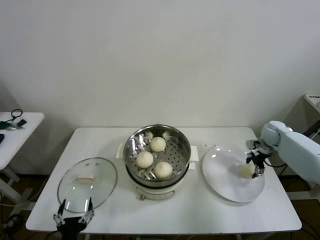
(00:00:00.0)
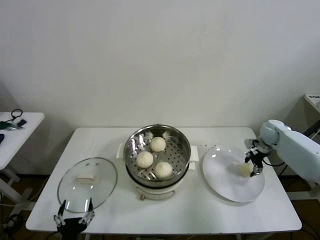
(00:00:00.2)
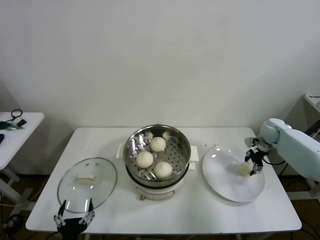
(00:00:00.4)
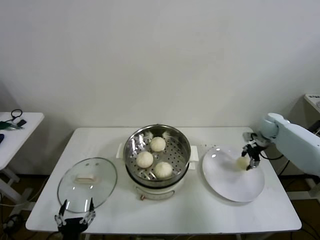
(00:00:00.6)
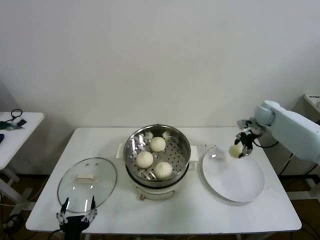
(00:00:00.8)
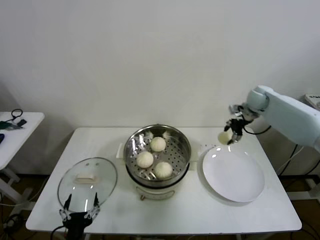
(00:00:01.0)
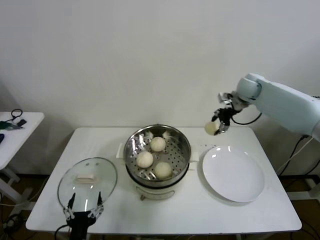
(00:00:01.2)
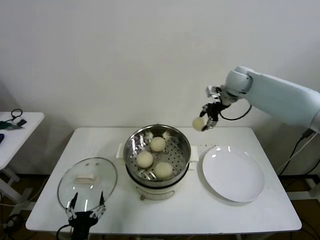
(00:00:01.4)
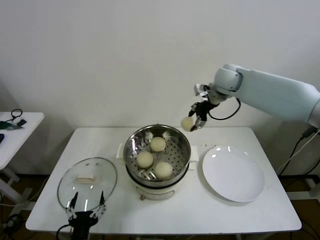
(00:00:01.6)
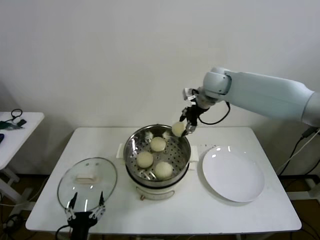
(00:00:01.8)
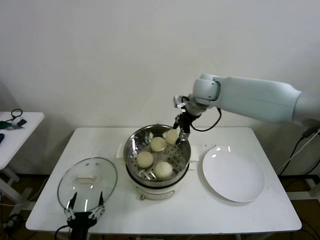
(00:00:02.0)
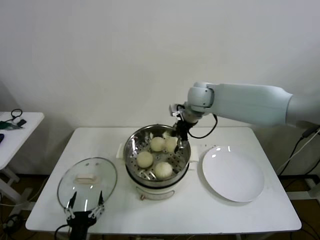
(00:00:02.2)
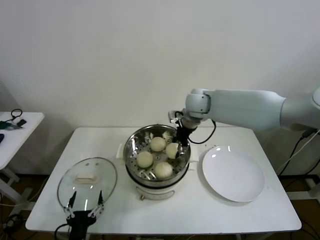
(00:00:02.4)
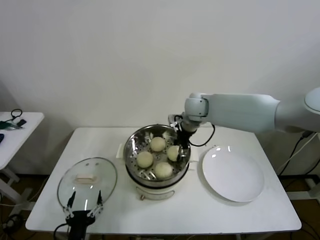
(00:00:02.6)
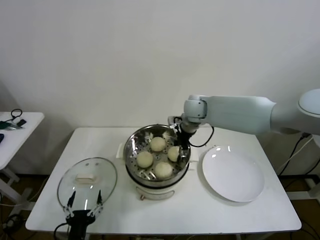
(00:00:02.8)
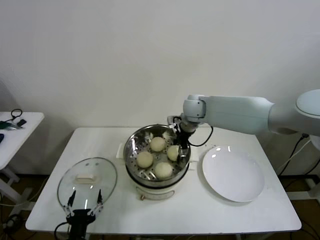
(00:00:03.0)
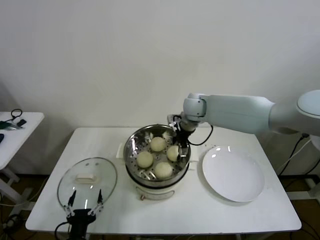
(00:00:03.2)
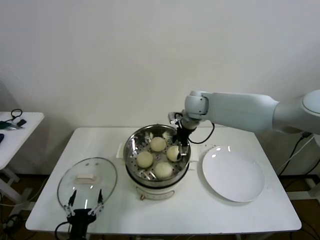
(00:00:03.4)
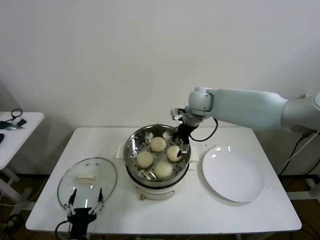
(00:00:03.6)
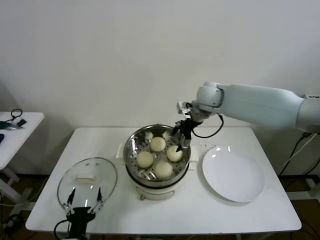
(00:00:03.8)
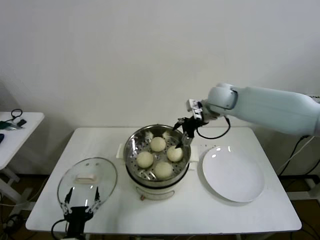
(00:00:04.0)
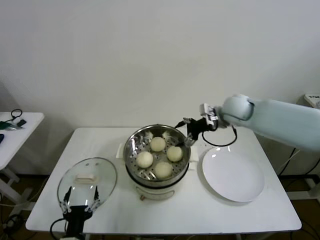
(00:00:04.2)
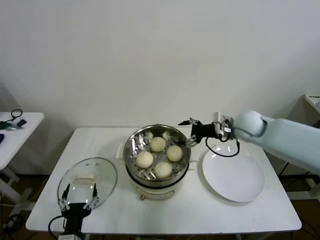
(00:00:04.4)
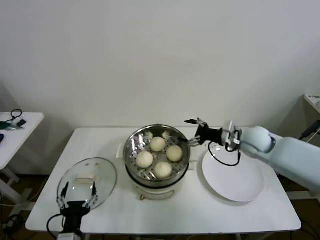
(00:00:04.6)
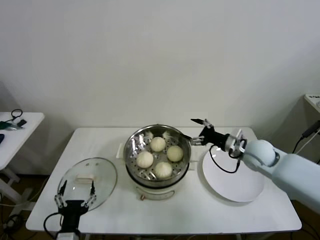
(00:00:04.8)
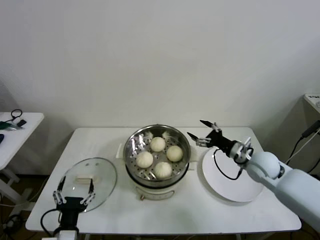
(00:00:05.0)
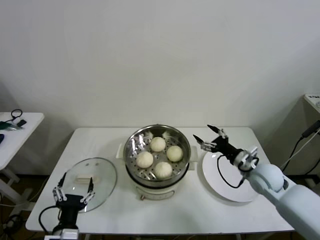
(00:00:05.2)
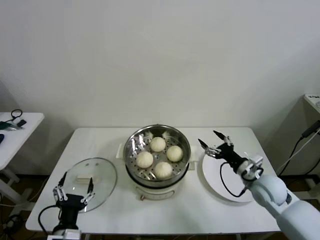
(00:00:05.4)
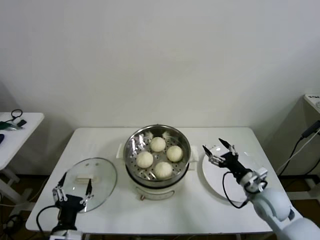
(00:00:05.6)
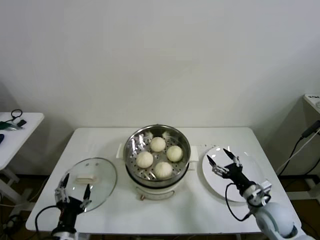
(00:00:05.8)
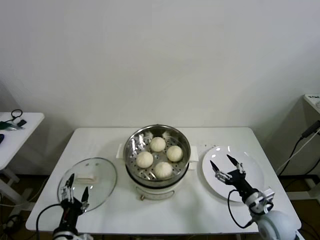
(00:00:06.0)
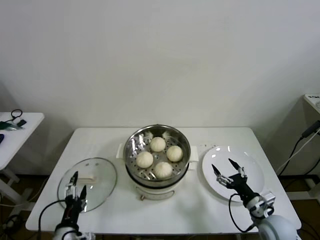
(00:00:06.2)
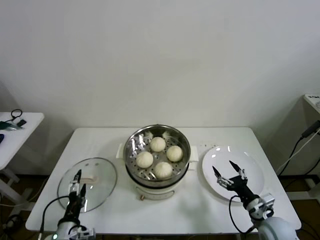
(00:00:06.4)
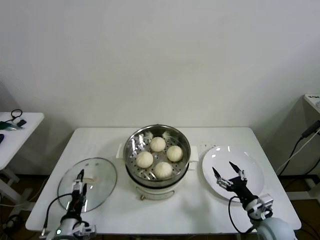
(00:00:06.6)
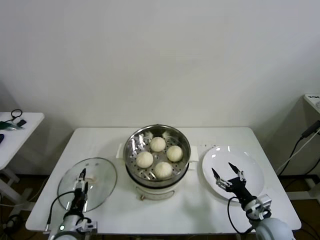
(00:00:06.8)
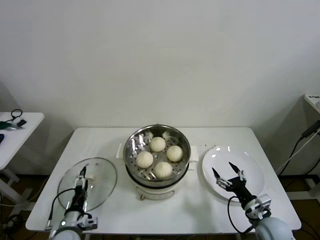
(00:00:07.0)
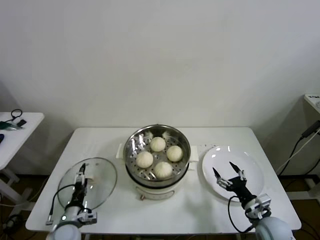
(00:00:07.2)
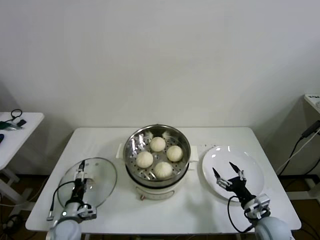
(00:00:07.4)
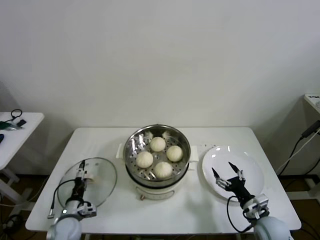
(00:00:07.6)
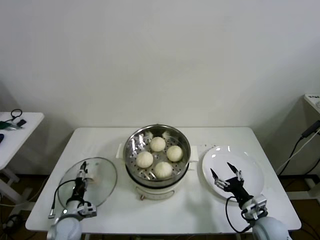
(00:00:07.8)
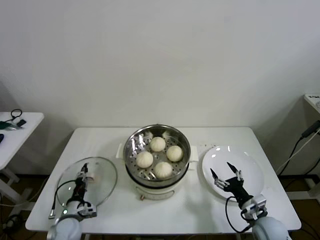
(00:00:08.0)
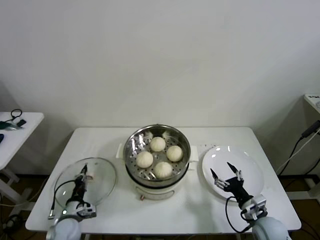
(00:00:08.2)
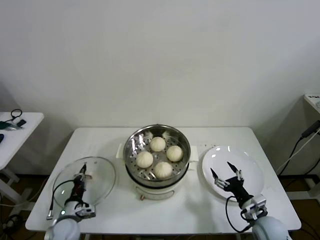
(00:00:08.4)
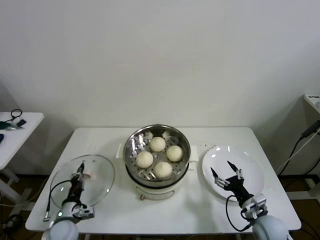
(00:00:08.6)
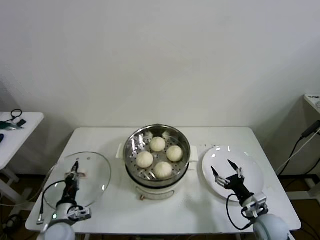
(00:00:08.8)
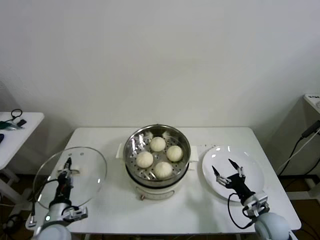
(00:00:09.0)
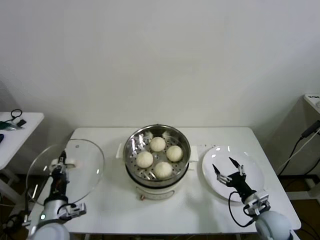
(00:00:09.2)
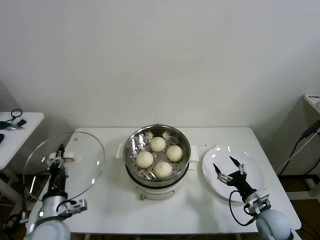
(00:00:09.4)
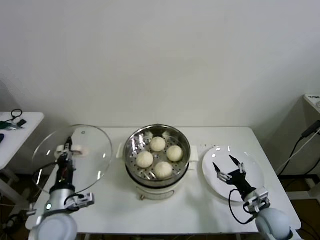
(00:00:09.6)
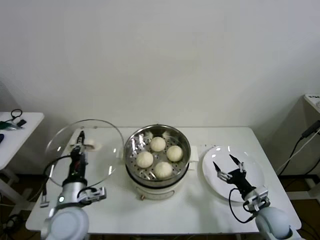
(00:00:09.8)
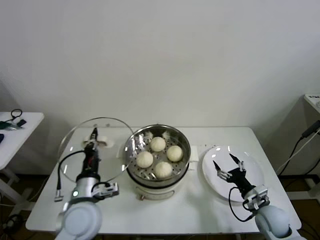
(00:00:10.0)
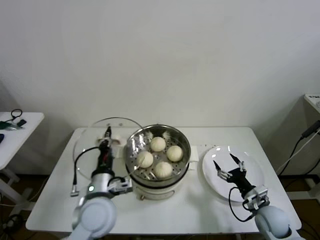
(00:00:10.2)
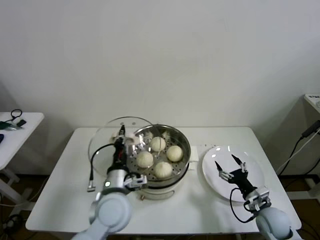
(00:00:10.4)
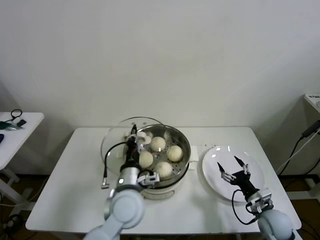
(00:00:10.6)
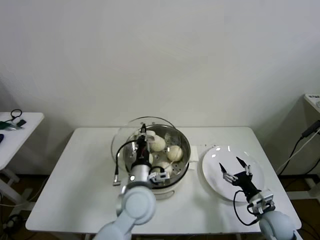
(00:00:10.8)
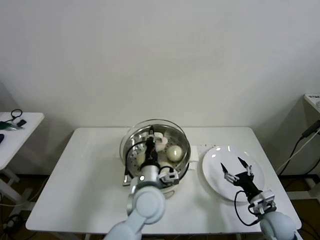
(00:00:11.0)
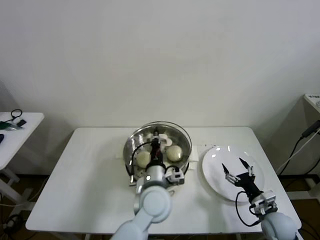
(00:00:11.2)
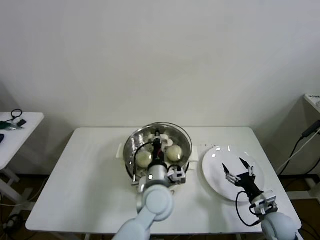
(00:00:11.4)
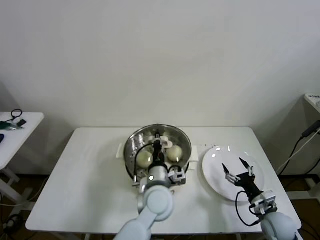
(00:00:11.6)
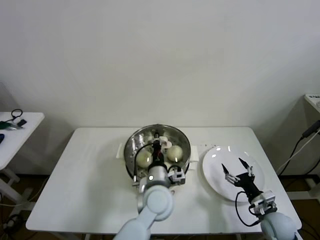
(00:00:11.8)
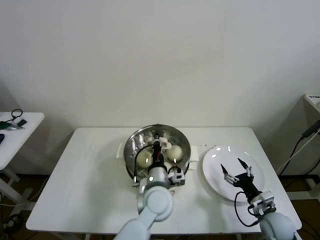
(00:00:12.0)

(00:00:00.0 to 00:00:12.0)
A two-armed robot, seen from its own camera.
Step, 00:00:00.2 - 00:00:03.0: Place the baozi on the steamer with right gripper.
Step, 00:00:03.2 - 00:00:08.2: Grasp the pot lid with left gripper.
00:00:00.0 - 00:00:01.6: The right gripper moves to the left and upward, some 35 cm, and closes.
00:00:01.6 - 00:00:03.0: The right gripper shifts some 15 cm downward and to the left.
00:00:03.0 - 00:00:04.4: The right gripper heads to the right and backward, covering about 20 cm, and opens its fingers.
00:00:04.4 - 00:00:06.0: The right gripper is displaced backward and downward by roughly 30 cm.
00:00:06.0 - 00:00:07.6: The left gripper shifts about 20 cm forward, downward and to the left.
00:00:07.6 - 00:00:09.0: The left gripper moves upward, about 10 cm, and closes up.
00:00:09.0 - 00:00:10.4: The left gripper goes some 25 cm to the right and upward.
00:00:10.4 - 00:00:12.0: The left gripper goes approximately 10 cm to the right.

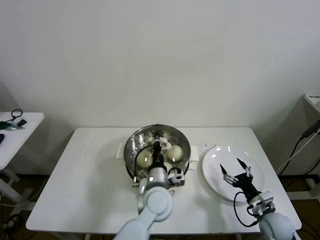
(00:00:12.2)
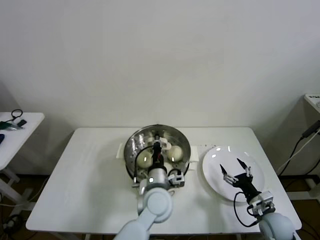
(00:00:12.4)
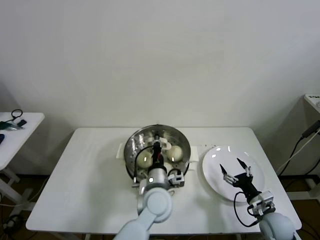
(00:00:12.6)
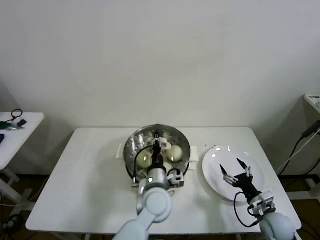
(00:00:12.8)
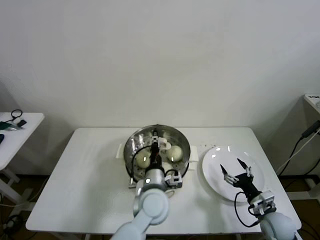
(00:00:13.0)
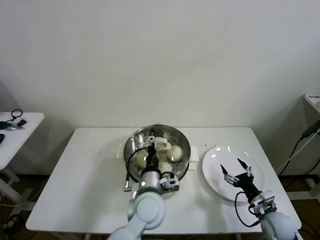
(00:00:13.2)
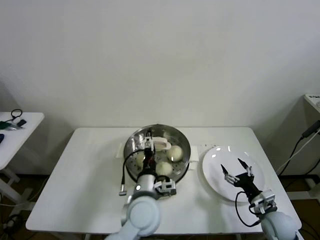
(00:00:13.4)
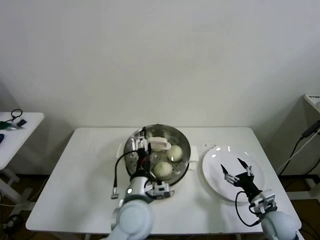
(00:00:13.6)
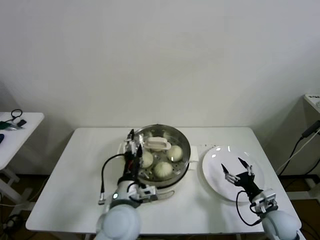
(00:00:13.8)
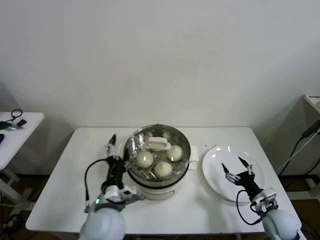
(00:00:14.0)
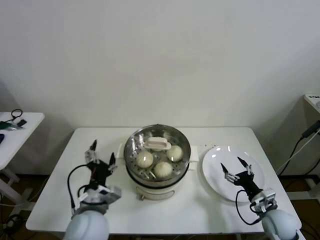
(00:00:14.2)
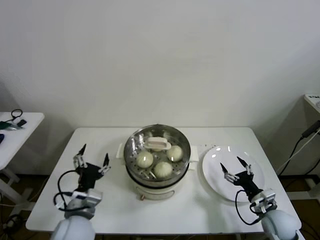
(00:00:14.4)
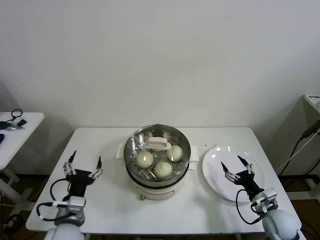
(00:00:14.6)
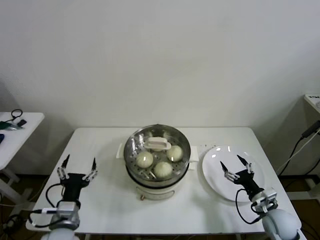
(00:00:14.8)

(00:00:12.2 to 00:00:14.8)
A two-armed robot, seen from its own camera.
00:00:12.2 - 00:00:13.4: The left gripper changes place by roughly 5 cm, and opens.
00:00:13.4 - 00:00:14.8: The left gripper travels to the left by roughly 20 cm.
